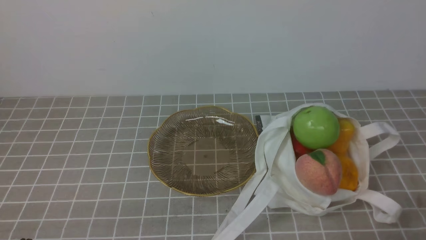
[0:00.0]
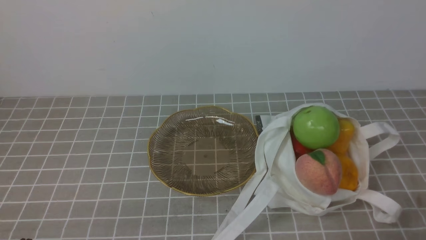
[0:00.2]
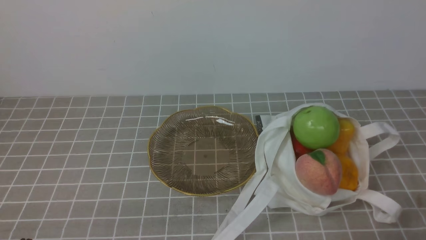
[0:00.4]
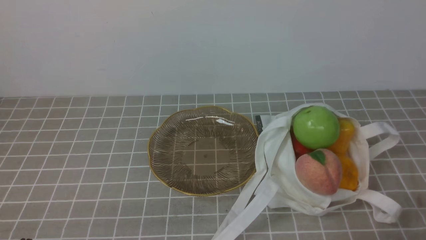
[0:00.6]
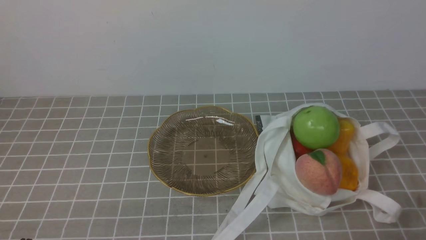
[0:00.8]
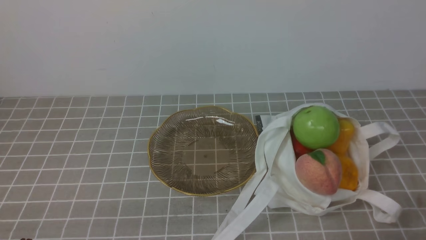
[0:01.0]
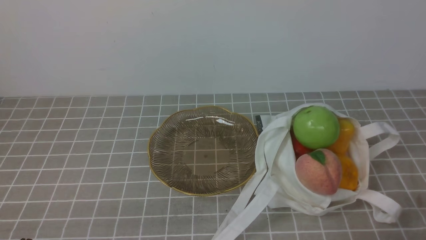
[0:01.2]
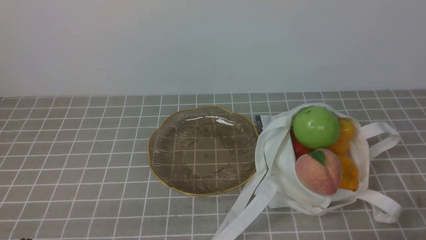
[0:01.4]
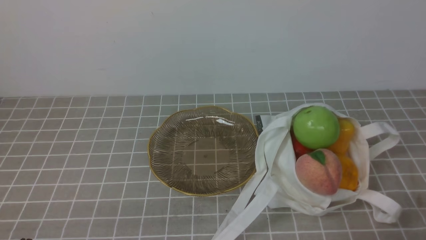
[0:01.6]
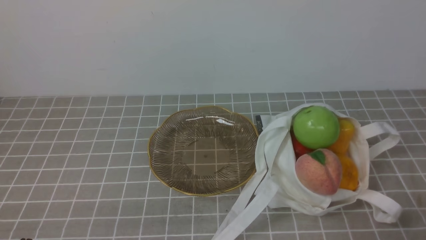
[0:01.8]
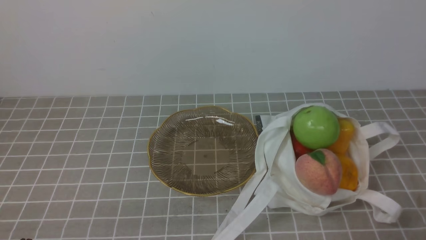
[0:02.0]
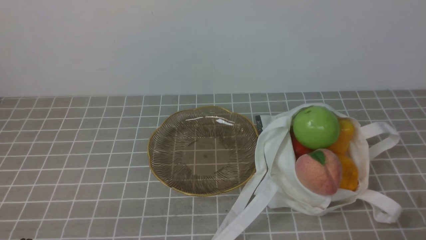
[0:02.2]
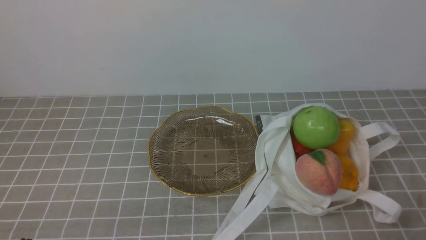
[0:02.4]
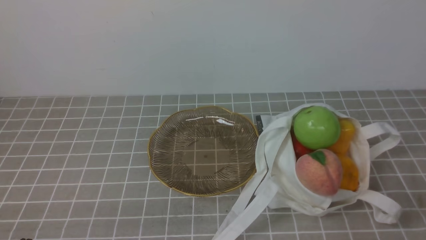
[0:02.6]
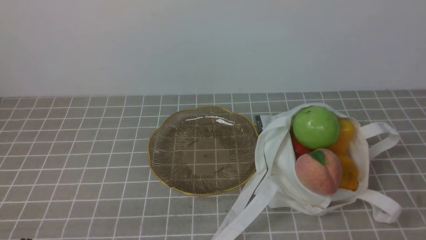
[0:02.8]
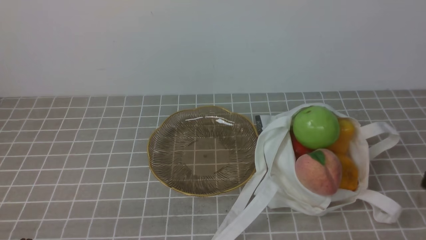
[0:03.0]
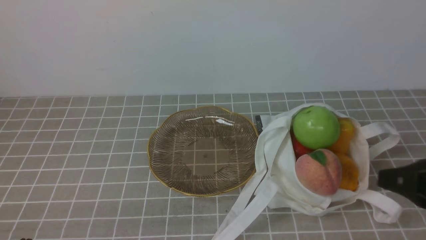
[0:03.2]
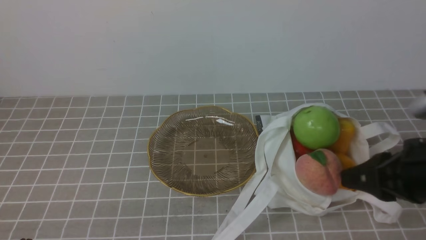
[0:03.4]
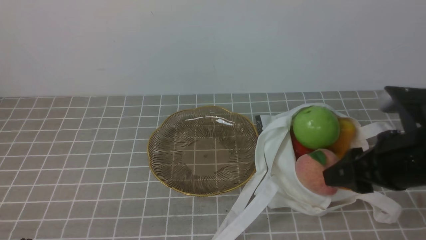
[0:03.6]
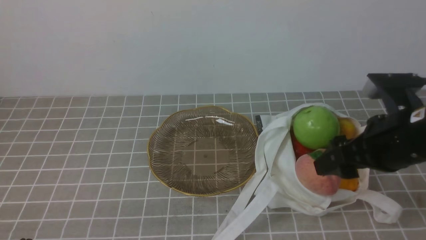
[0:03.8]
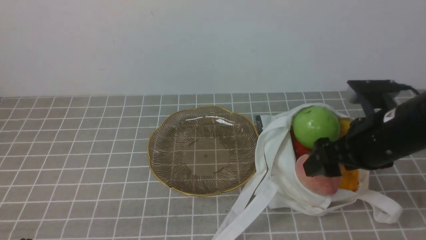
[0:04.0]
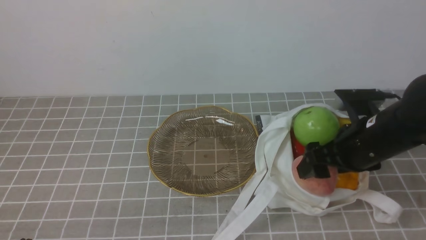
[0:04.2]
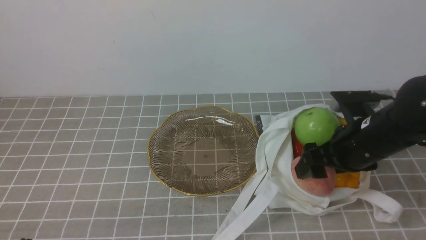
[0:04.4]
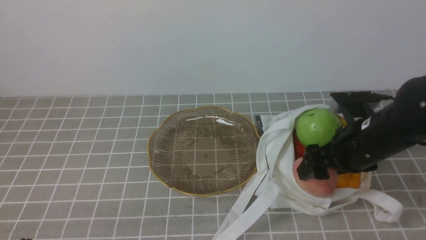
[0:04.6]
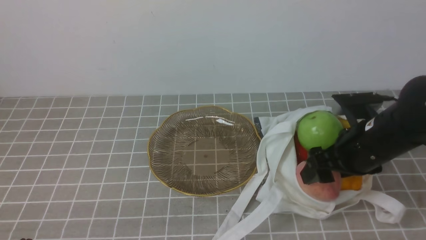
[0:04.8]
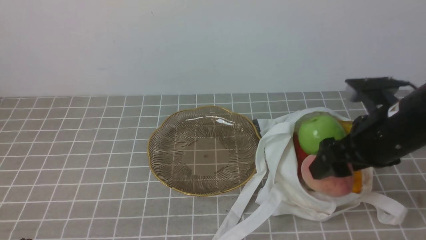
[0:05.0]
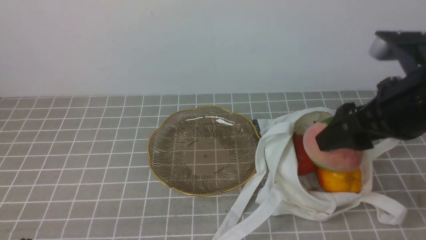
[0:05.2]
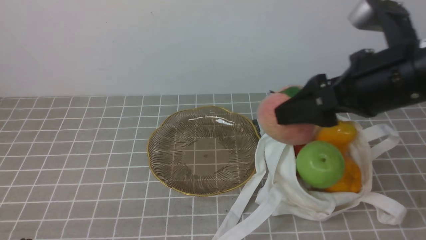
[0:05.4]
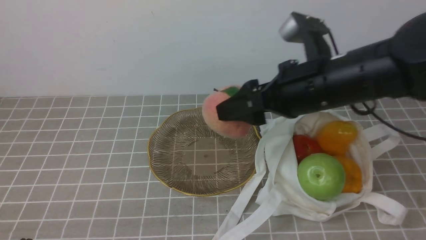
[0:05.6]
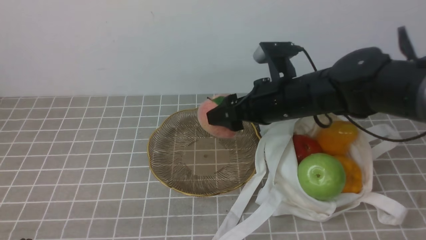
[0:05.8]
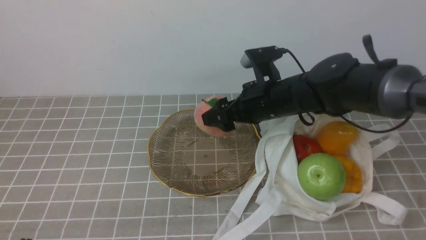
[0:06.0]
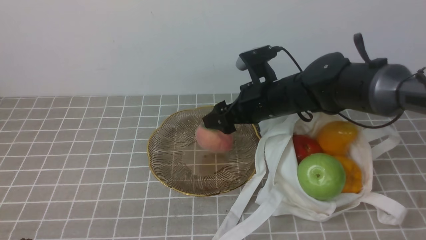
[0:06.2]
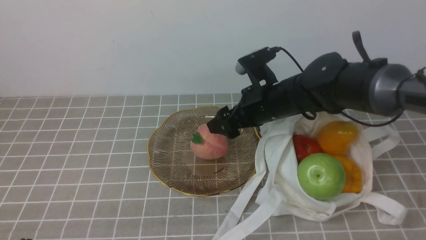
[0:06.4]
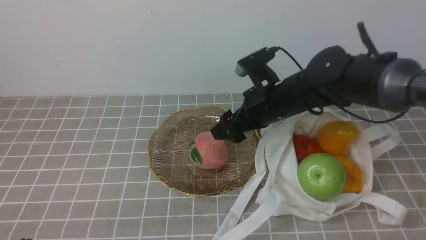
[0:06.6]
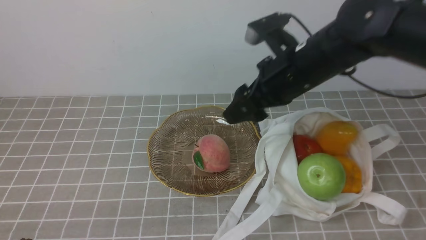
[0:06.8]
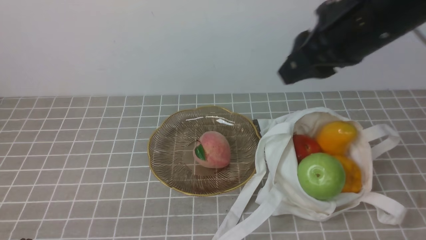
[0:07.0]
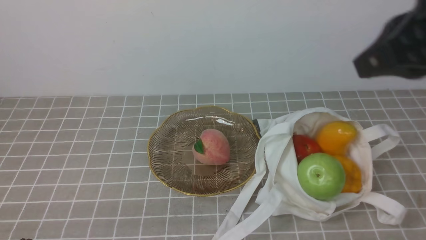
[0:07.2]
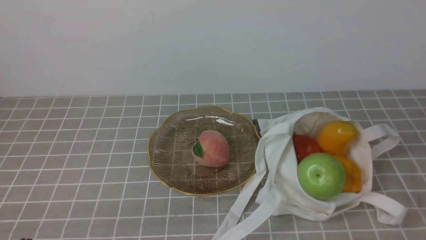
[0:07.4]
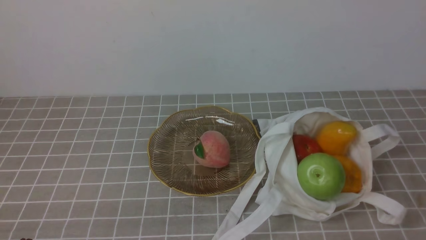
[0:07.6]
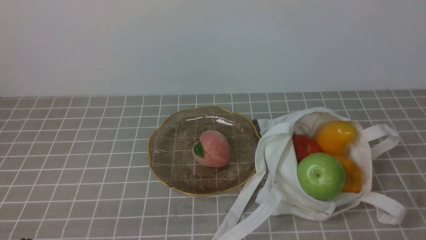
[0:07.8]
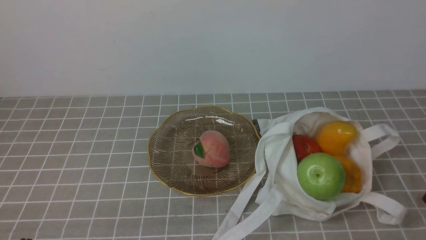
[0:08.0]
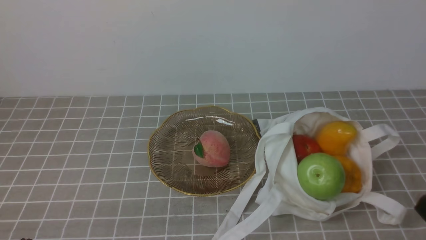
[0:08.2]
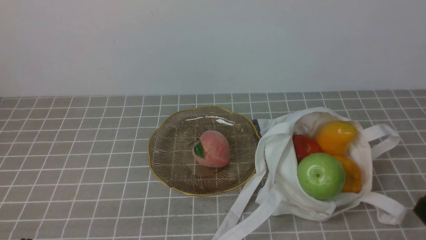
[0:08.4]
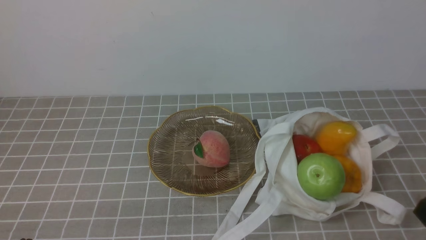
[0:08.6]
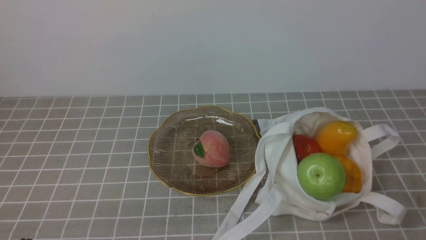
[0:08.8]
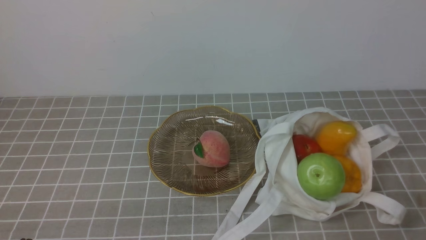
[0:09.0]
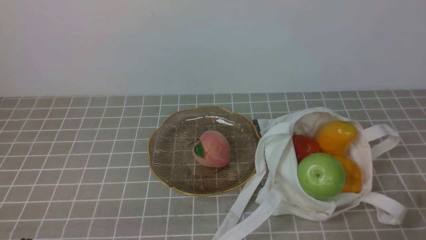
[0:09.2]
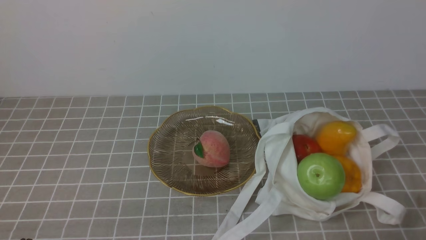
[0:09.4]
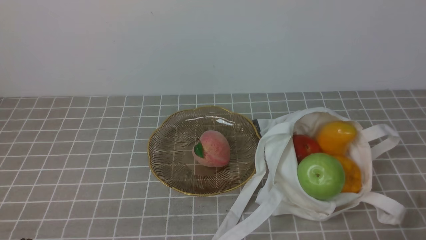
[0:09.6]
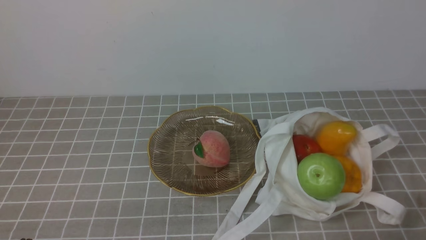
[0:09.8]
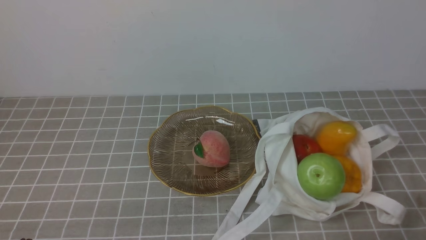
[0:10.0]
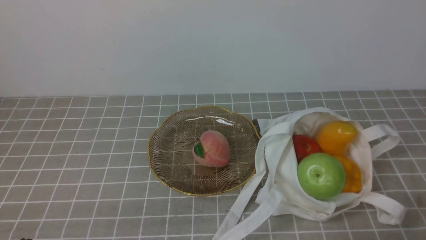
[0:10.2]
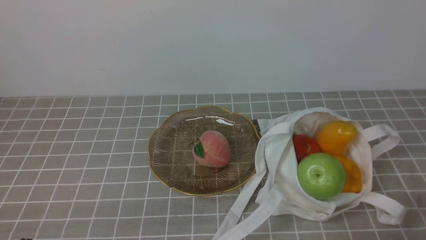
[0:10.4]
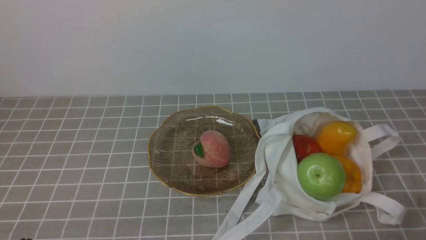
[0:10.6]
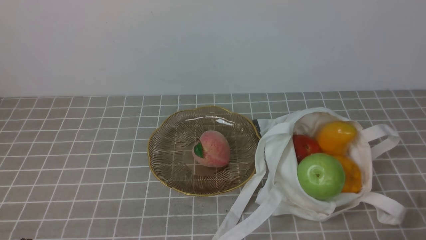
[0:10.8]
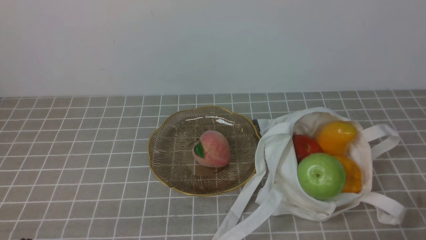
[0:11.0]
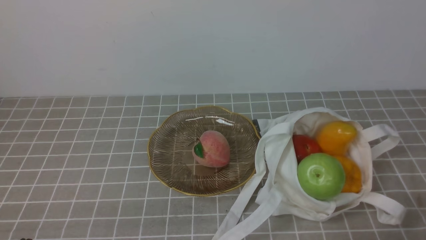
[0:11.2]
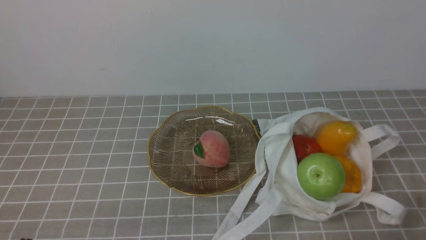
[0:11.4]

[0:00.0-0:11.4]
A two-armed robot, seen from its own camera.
Step, 0:00.0 to 0:04.8: use the right arm to grab a peach from the bag.
Step, 0:05.2 to 0:06.4: use the right arm to put the peach into the empty plate on the left.
0:00.0 to 0:01.4: Neither gripper changes place.
0:02.8 to 0:04.2: The right gripper heads forward, covering some 20 cm, and opens up.
0:04.2 to 0:05.6: The right gripper shifts about 10 cm to the left and upward.
0:05.6 to 0:07.2: The right gripper heads backward, upward and to the right, covering roughly 20 cm, and closes its fingers.
0:07.2 to 0:08.6: The right gripper heads downward and backward, covering roughly 20 cm.
0:10.0 to 0:11.4: Neither gripper changes place.

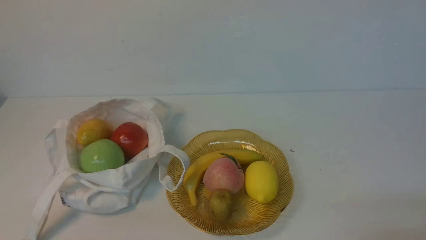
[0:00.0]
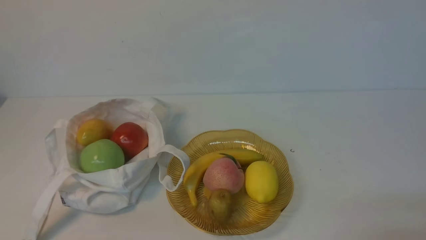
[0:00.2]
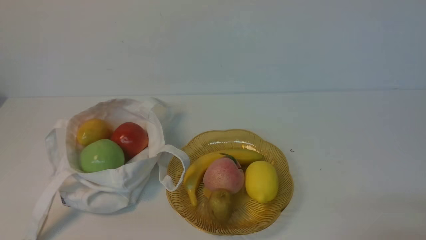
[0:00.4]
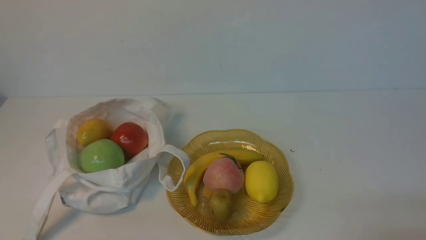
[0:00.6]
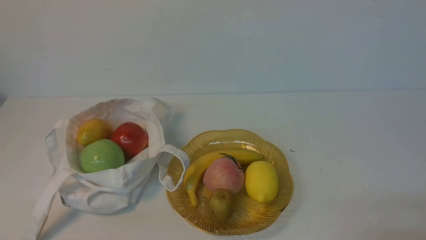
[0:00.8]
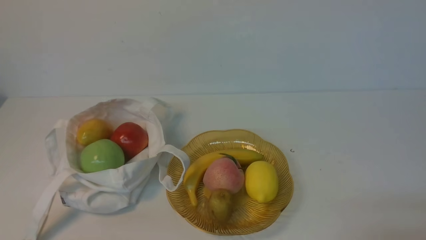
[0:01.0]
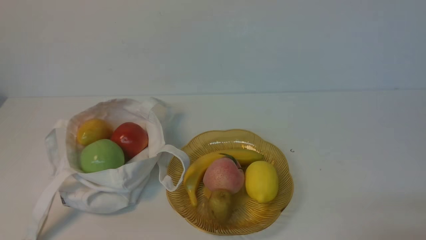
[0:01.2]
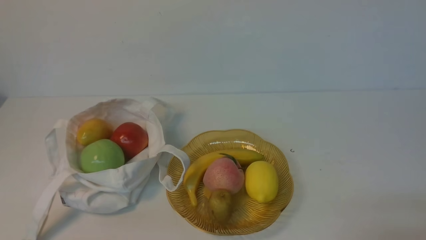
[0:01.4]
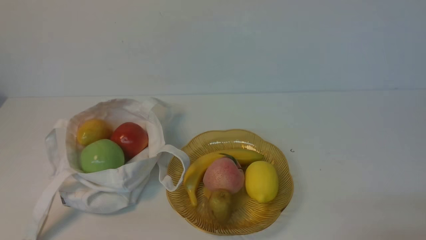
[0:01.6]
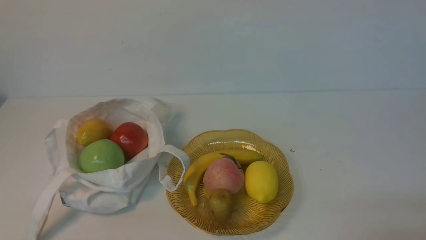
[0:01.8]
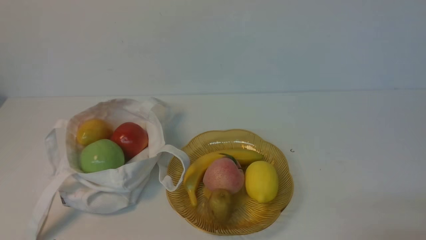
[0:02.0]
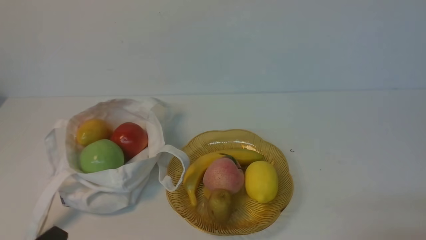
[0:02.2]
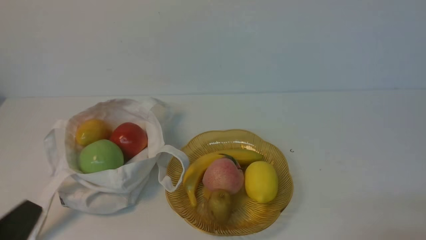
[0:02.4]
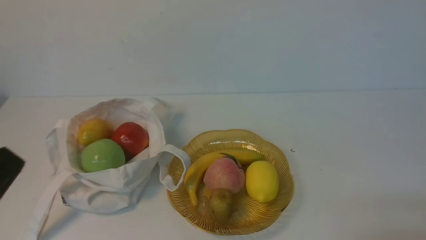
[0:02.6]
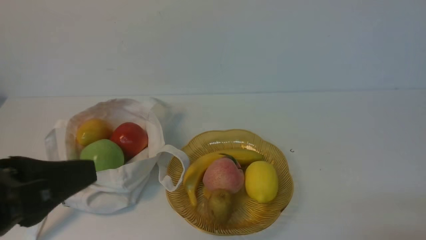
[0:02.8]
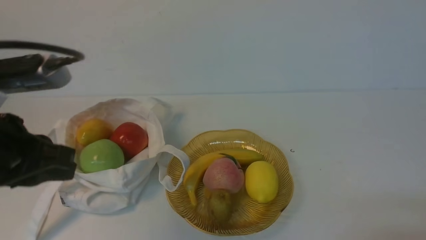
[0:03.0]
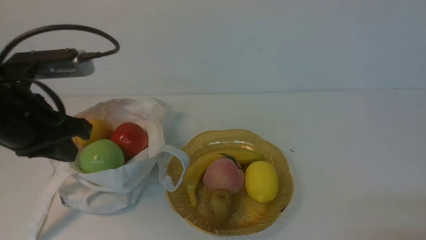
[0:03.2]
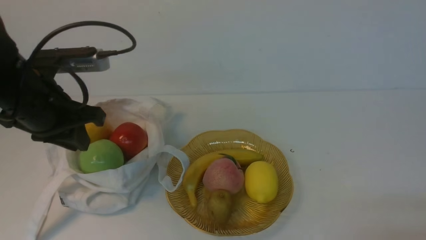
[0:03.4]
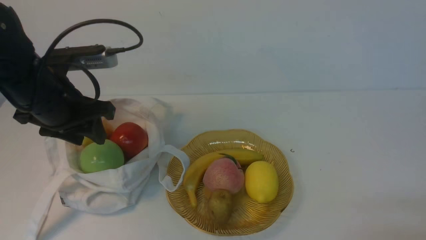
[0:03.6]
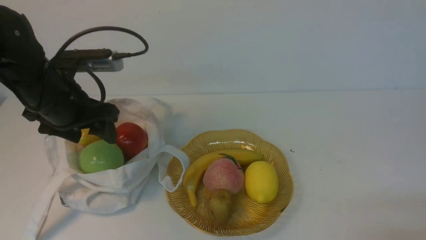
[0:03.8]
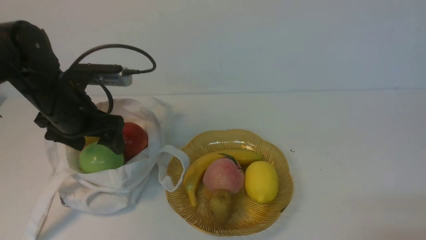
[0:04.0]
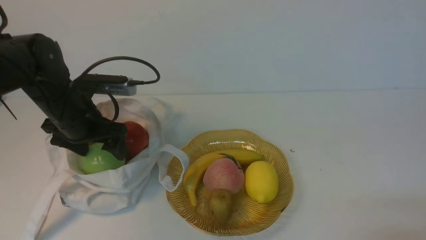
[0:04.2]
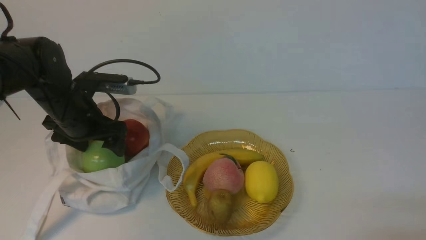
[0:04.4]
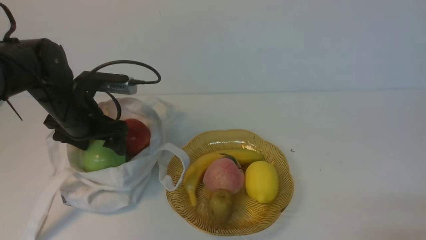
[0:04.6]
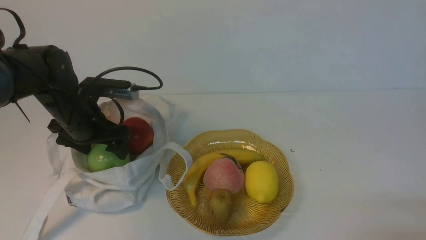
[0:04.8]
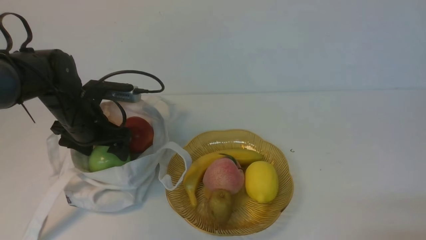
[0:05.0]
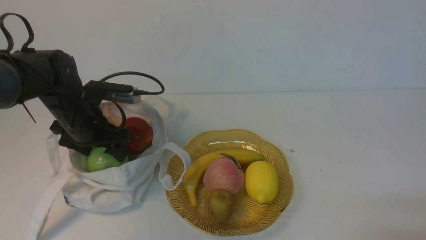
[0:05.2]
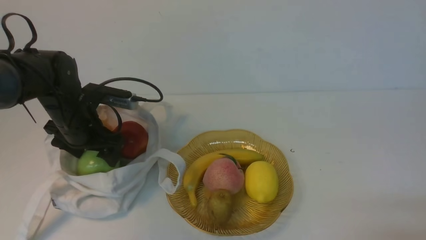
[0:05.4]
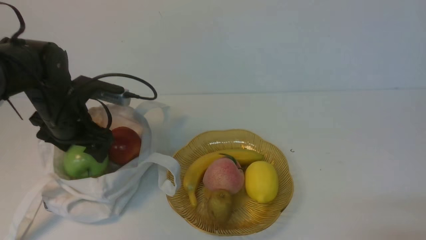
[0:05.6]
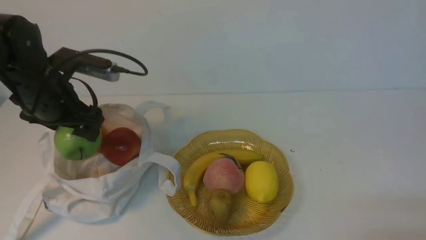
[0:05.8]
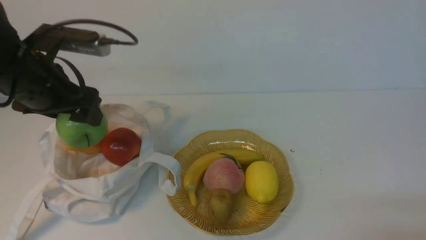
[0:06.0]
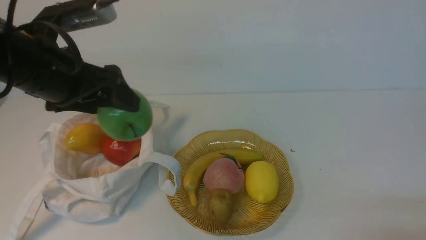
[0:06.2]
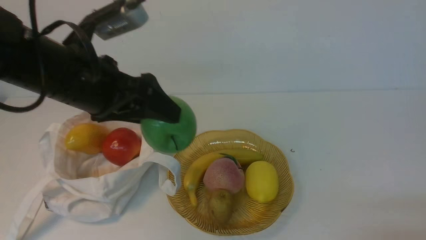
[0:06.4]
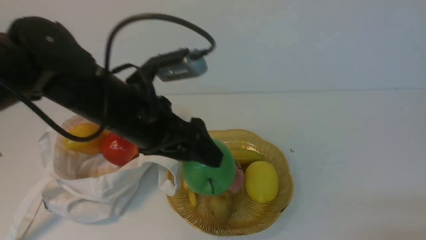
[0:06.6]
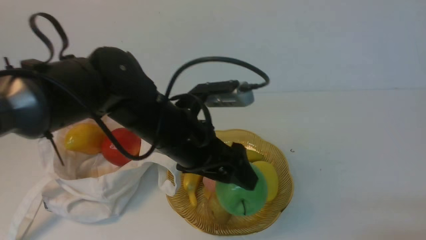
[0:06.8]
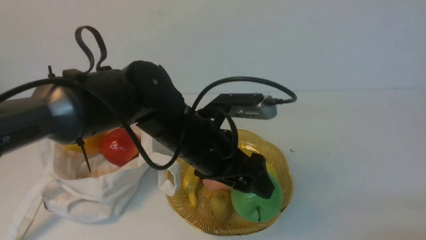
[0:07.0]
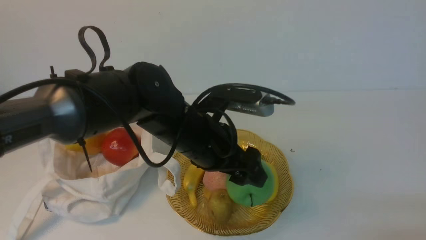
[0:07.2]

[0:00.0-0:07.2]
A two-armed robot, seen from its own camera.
Step, 0:00.0 to 0:05.6: use the left arm to grab an apple from the bag.
0:01.4 to 0:02.8: The left gripper is displaced upward by roughly 15 cm.
0:02.8 to 0:04.4: The left gripper is displaced forward by roughly 30 cm, and opens up.
0:04.4 to 0:05.8: The grippers make only small movements.
0:05.8 to 0:07.2: The left gripper shifts about 20 cm to the right.
